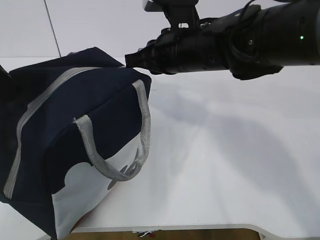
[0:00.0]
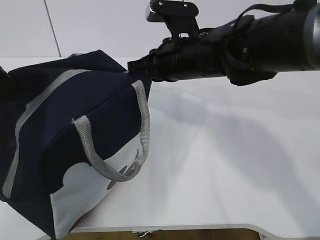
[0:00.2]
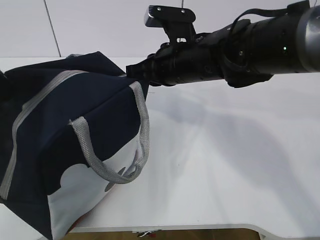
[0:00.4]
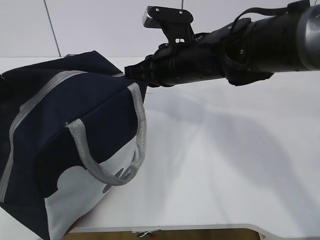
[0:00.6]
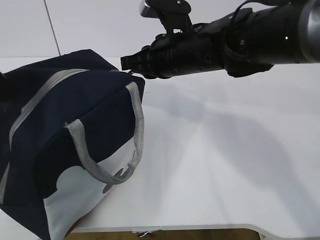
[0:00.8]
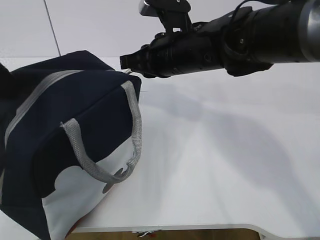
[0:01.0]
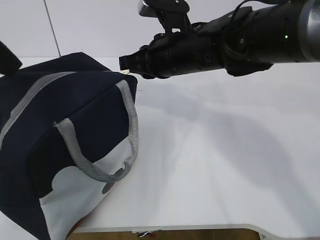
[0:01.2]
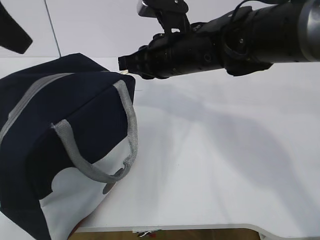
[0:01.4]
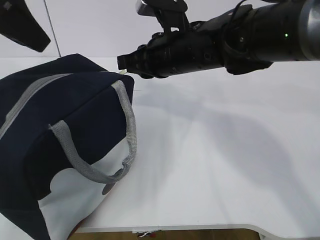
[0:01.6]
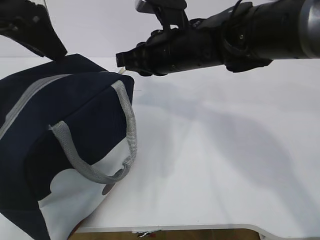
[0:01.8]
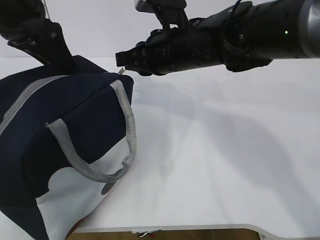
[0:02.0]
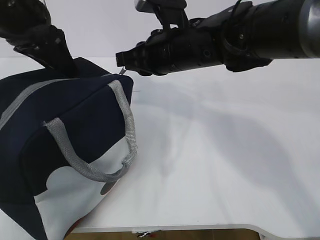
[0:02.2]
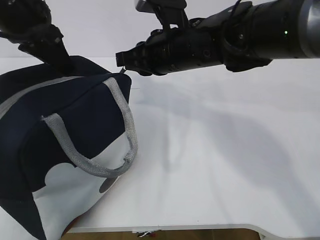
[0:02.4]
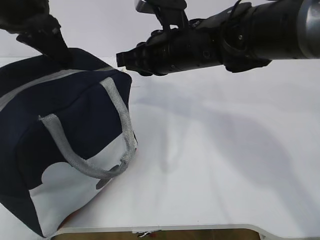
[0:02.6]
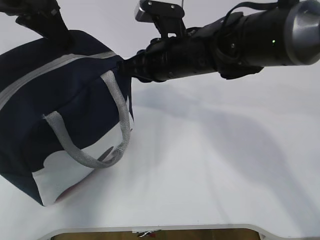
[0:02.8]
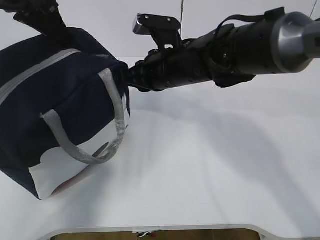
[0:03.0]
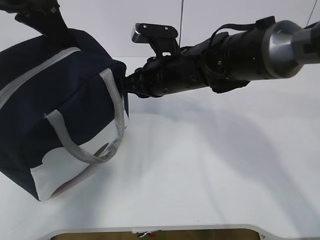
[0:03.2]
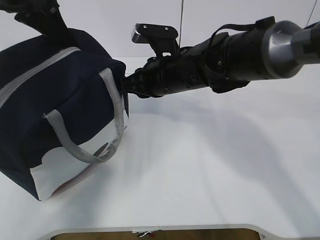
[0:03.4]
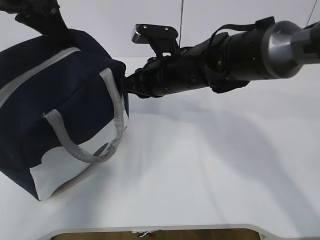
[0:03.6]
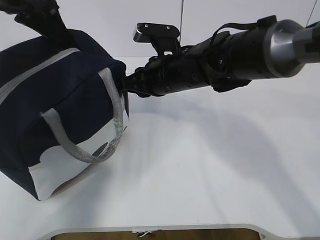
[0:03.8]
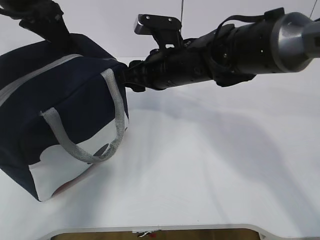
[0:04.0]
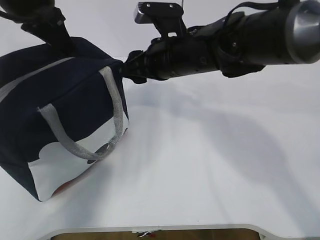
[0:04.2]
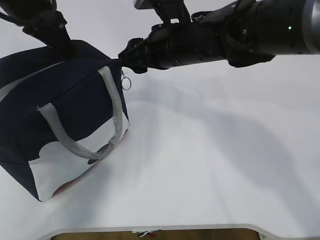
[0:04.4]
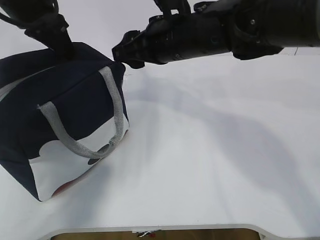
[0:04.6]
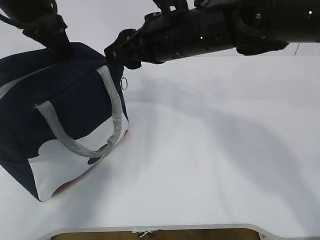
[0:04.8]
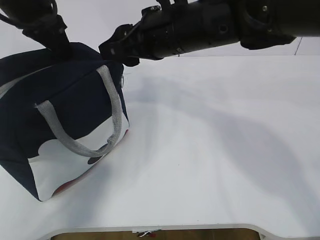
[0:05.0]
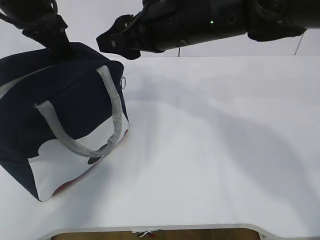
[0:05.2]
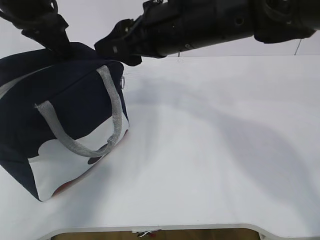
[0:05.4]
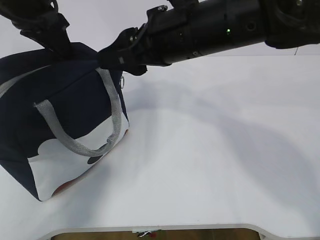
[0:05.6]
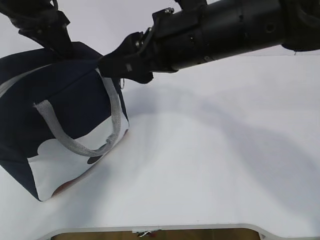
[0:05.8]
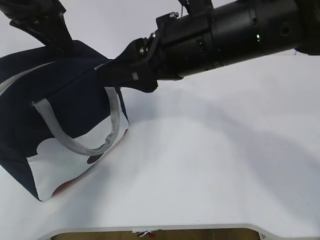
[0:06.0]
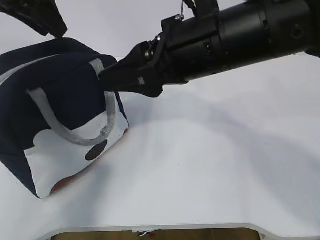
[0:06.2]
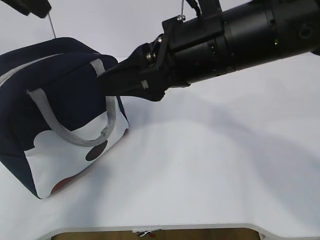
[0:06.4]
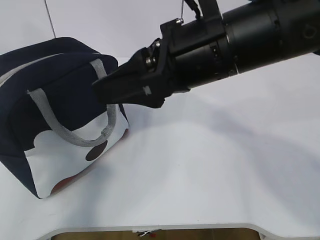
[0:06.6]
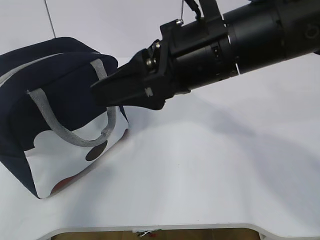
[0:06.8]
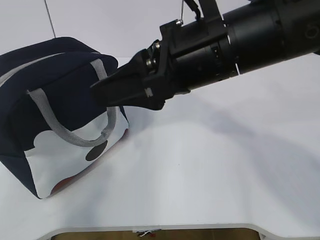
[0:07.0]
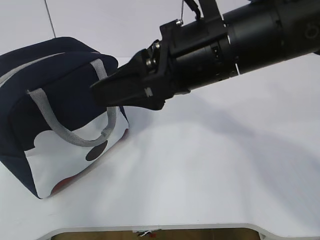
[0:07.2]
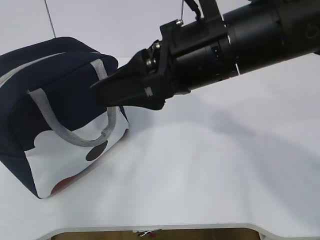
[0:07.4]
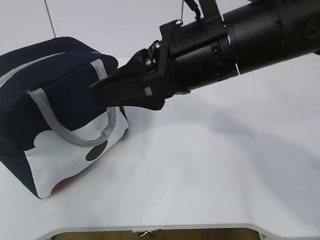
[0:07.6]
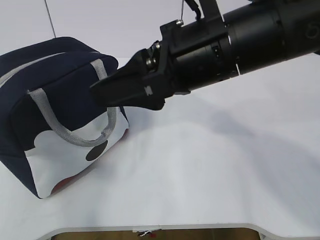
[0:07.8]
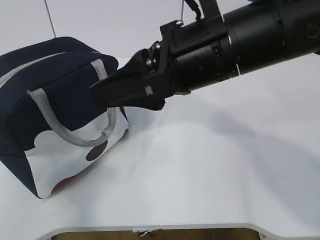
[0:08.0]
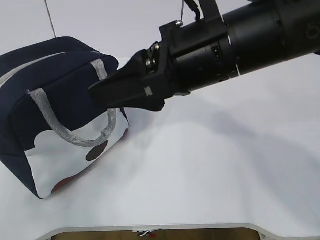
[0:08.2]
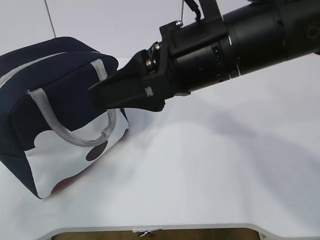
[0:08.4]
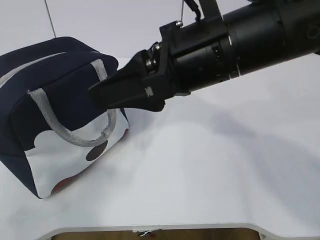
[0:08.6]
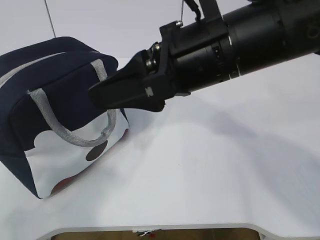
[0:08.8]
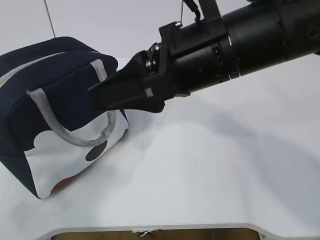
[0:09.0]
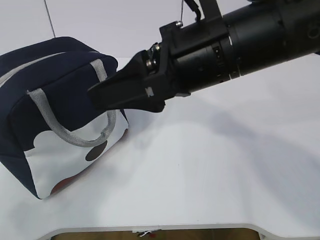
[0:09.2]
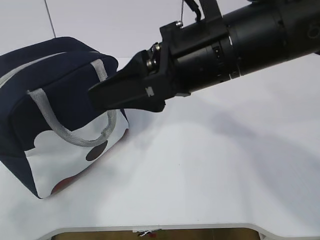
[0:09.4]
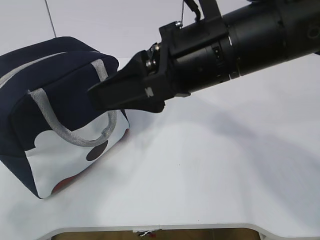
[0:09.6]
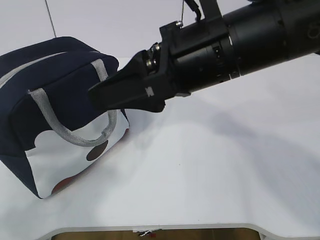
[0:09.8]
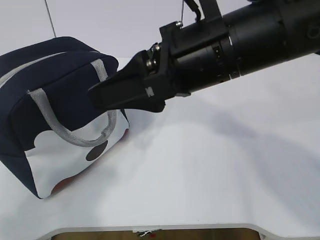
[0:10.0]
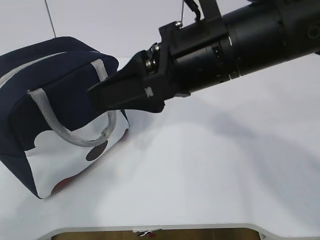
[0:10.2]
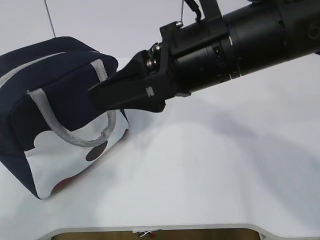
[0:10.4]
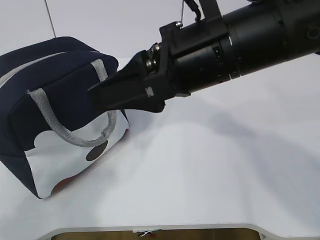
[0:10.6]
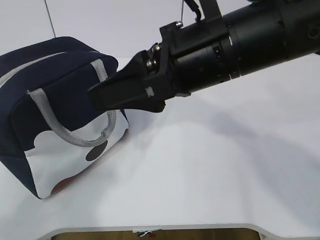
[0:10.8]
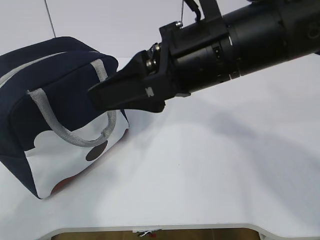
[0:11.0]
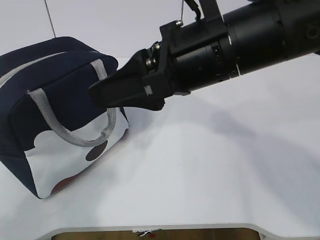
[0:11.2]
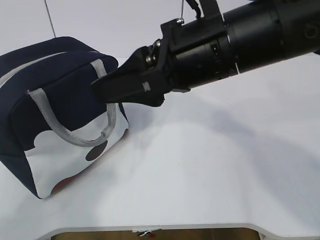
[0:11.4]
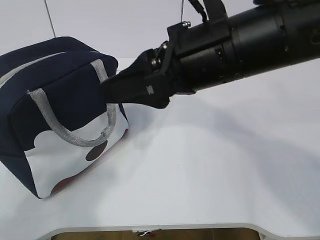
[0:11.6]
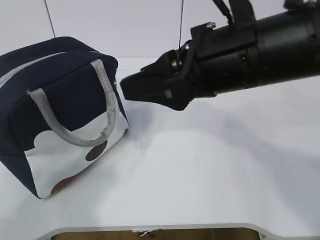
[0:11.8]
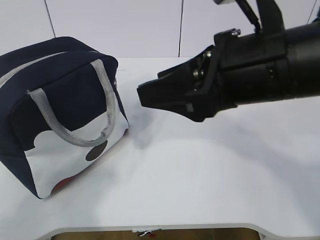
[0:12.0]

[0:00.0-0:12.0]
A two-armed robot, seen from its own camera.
0:00.0 to 0:01.6: The left gripper moves forward, roughly 5 cm, and opens.
0:01.6 to 0:03.0: The left gripper shifts about 5 cm forward, and closes.
0:03.0 to 0:04.4: The right gripper is displaced upward by some 5 cm, and opens up.
0:04.4 to 0:06.0: The left gripper opens its fingers. Meanwhile the right gripper moves backward, approximately 10 cm.
0:06.0 to 0:07.6: The left gripper goes some 30 cm backward.
0:07.6 to 0:09.0: The left gripper travels downward by about 15 cm.
0:10.4 to 0:12.0: The right gripper shifts by about 5 cm.

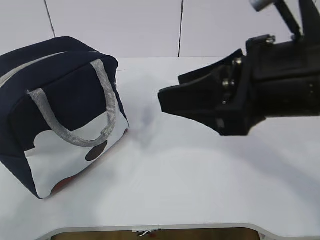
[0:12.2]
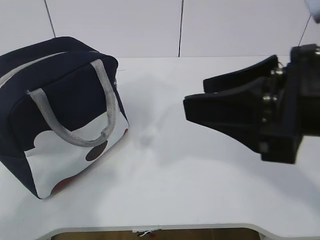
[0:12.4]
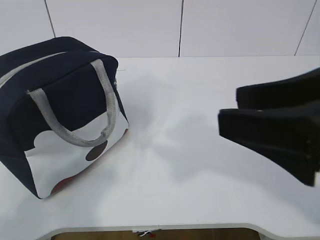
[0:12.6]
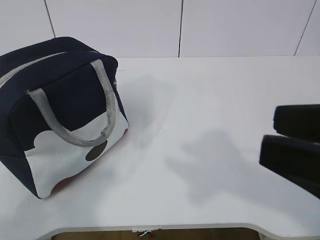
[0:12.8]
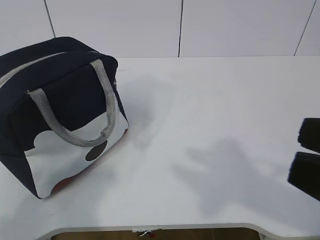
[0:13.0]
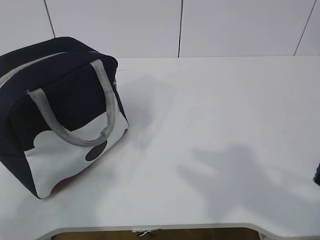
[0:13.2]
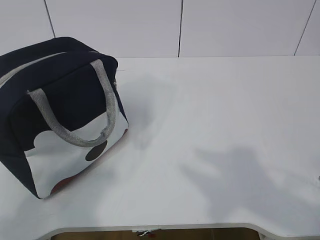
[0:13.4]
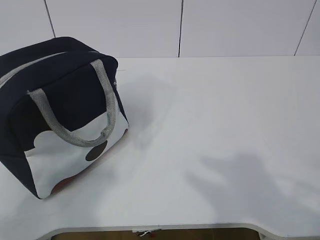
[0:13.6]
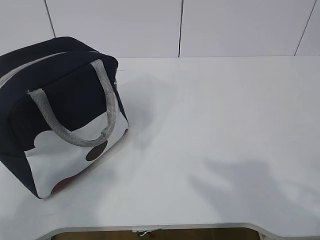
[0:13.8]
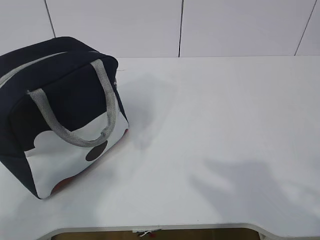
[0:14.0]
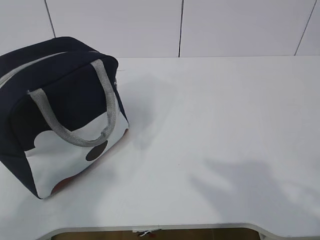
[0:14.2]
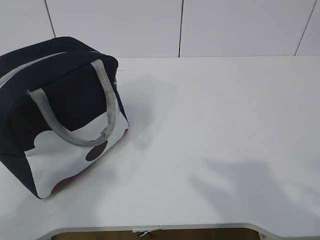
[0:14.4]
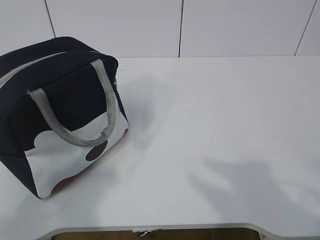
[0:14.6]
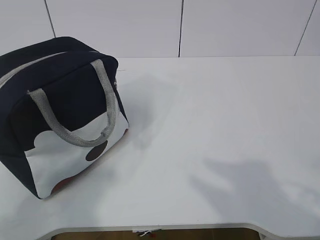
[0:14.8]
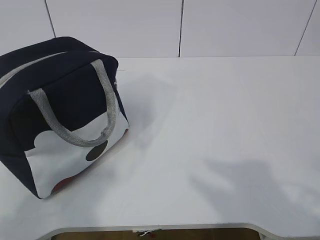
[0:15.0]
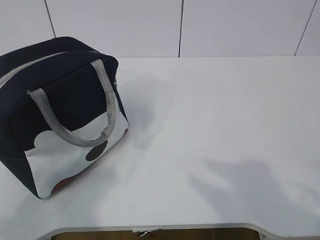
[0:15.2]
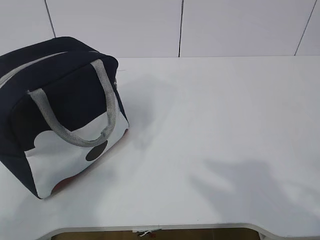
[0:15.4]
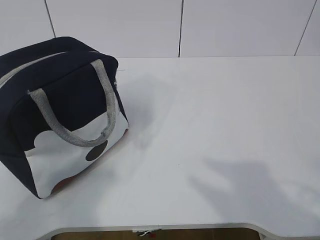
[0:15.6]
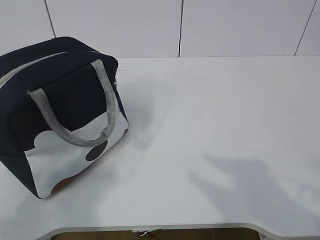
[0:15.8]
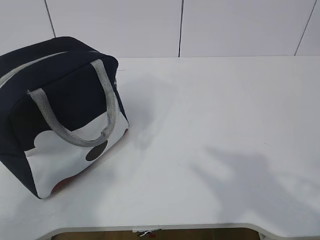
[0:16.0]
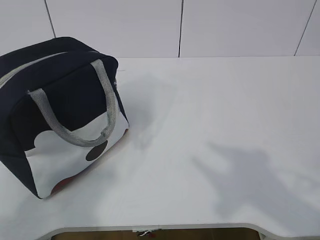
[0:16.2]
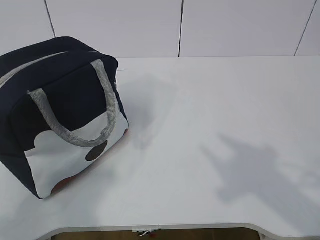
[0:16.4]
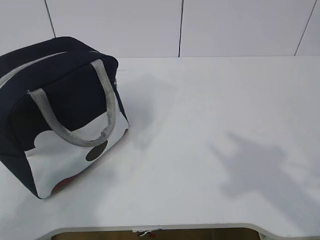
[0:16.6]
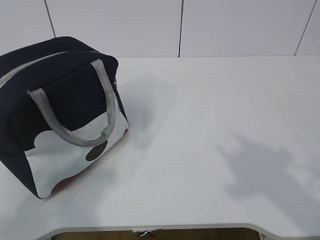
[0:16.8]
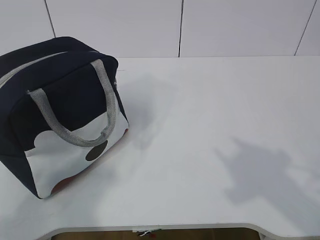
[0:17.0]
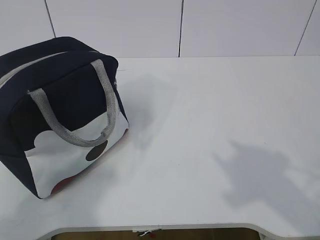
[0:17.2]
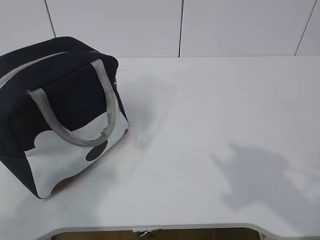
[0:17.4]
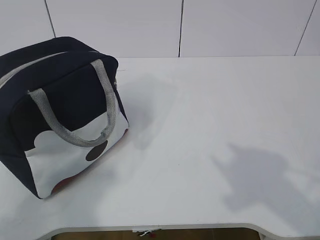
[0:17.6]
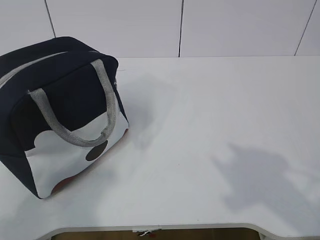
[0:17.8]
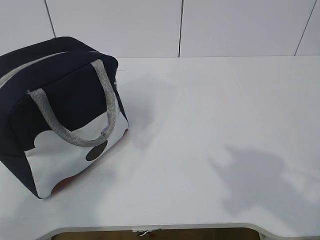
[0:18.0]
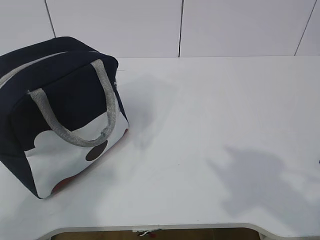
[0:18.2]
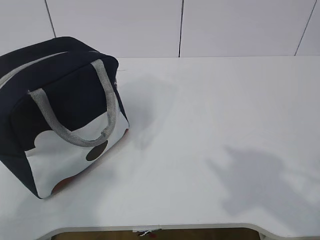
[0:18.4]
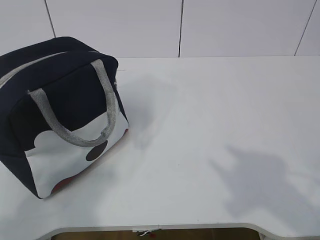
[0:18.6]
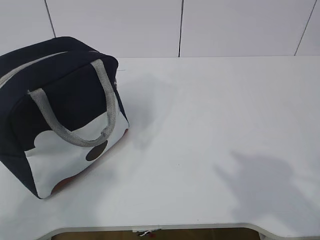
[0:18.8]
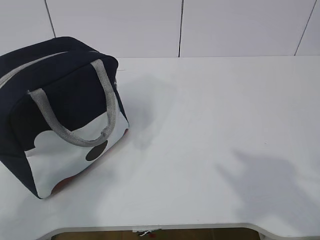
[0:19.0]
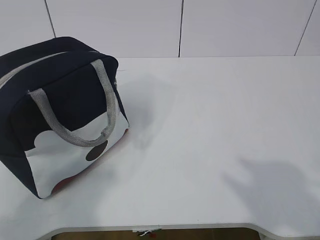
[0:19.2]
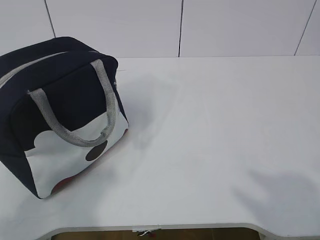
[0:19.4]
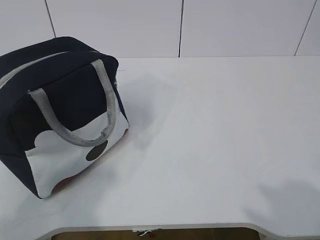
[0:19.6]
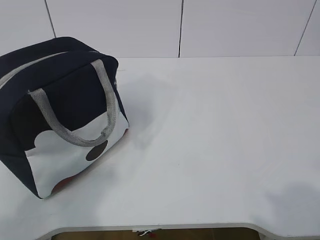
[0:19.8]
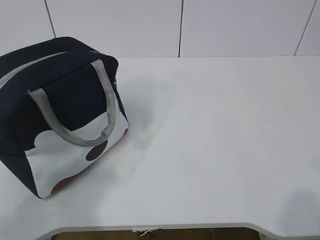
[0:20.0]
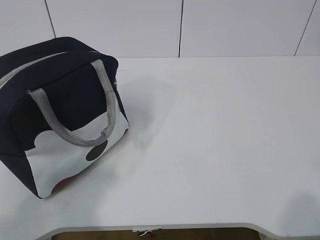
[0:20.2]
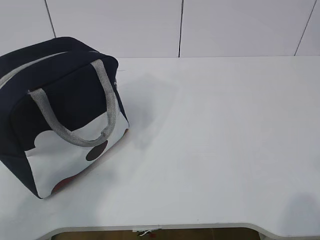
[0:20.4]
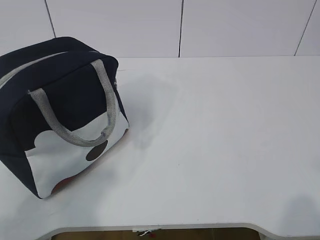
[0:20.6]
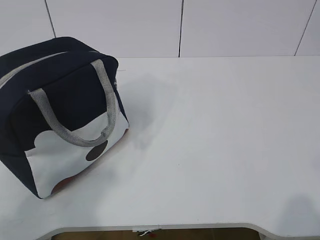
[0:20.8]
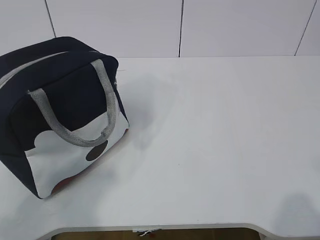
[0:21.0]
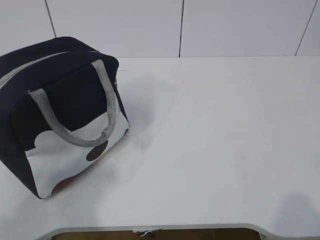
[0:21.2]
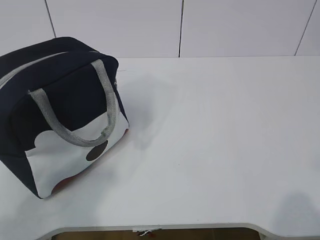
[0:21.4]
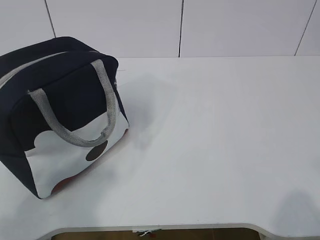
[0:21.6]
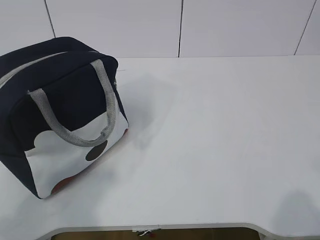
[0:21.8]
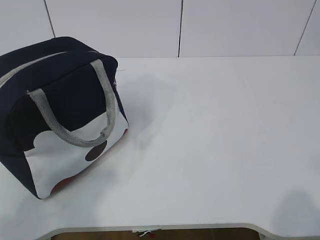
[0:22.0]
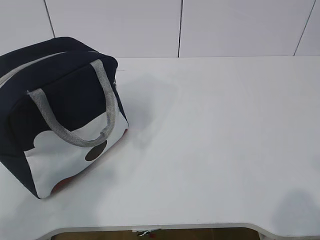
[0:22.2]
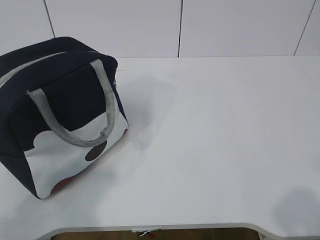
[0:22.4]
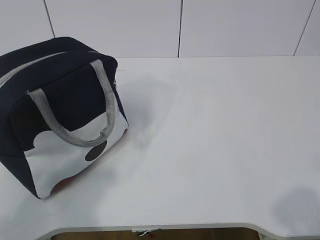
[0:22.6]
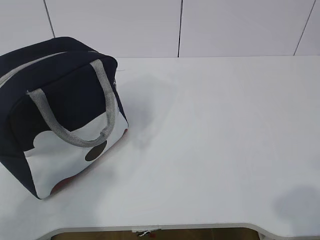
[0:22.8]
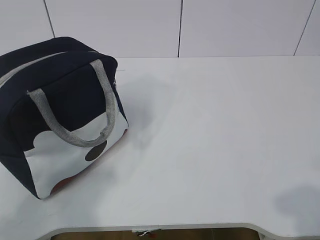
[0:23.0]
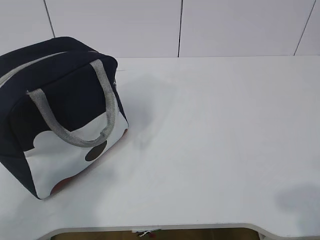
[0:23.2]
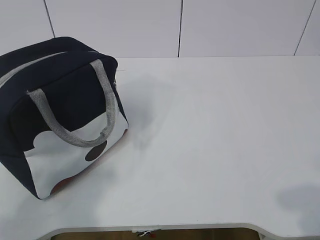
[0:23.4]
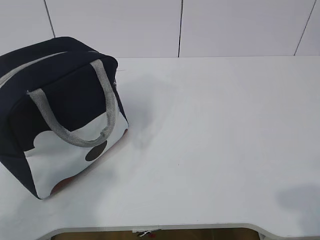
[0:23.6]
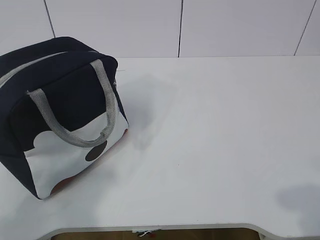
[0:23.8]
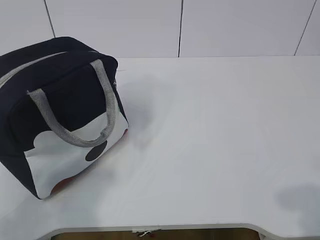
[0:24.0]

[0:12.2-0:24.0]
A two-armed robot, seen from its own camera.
0:12.2 to 0:13.6: The right gripper travels backward and to the right by some 15 cm.
0:13.6 to 0:15.2: The two grippers keep their place.
0:21.0 to 0:22.6: There are only small adjustments of the grippers.
